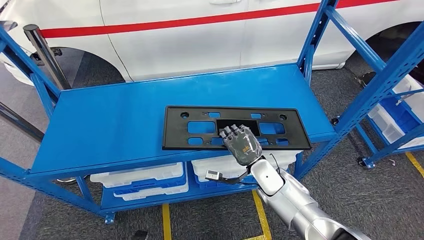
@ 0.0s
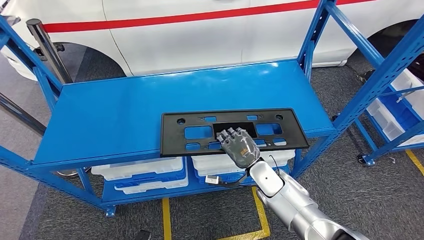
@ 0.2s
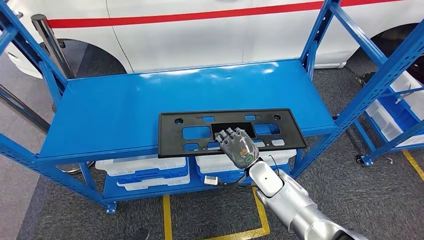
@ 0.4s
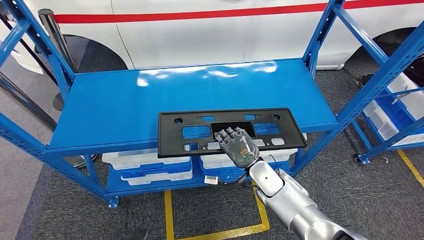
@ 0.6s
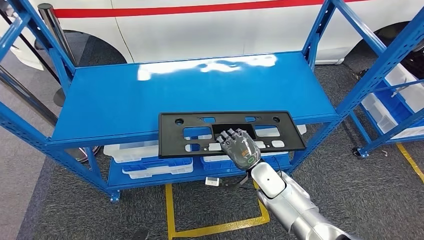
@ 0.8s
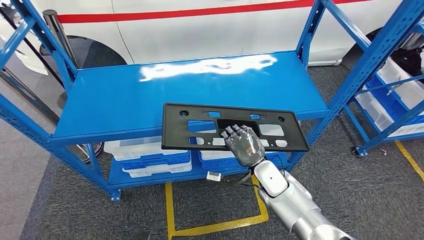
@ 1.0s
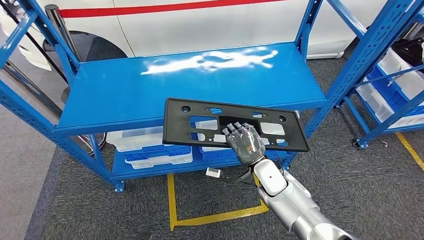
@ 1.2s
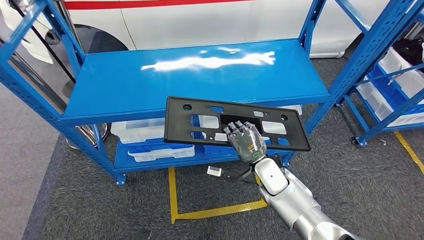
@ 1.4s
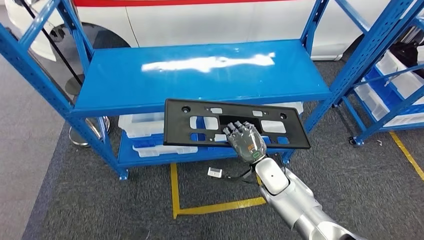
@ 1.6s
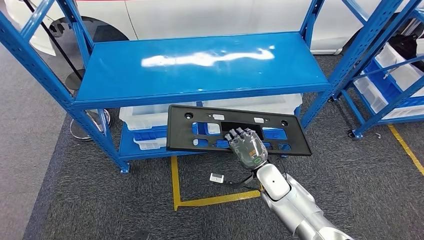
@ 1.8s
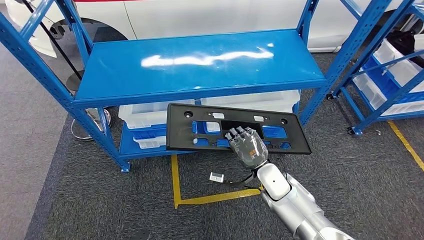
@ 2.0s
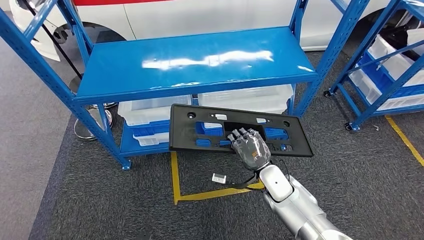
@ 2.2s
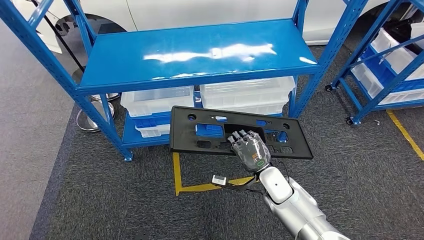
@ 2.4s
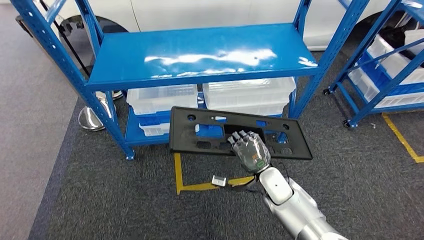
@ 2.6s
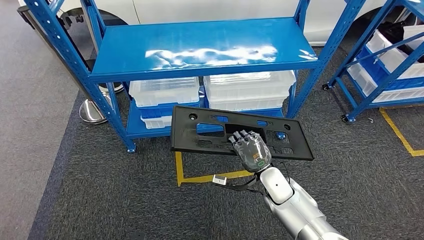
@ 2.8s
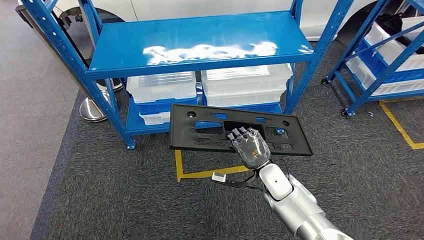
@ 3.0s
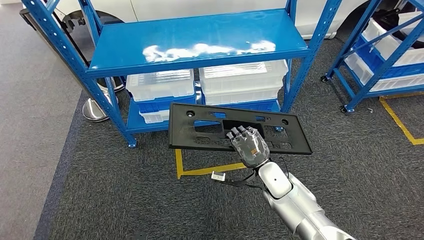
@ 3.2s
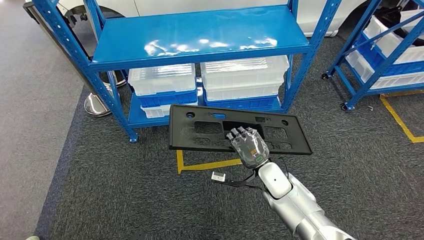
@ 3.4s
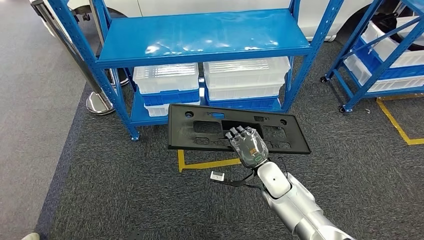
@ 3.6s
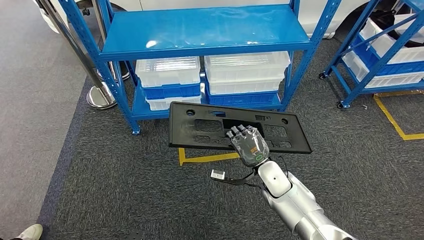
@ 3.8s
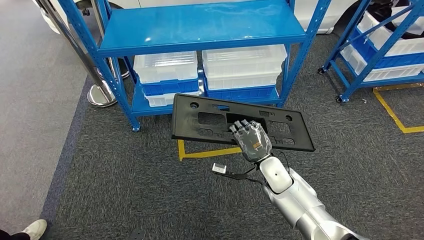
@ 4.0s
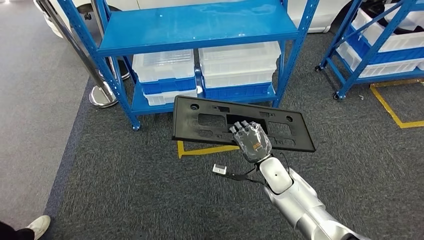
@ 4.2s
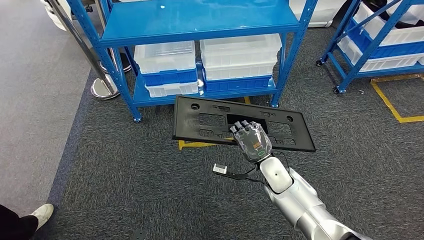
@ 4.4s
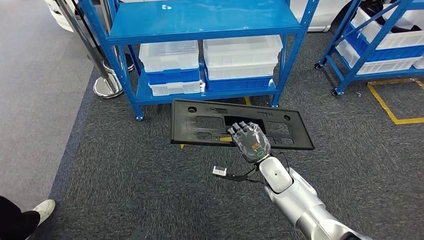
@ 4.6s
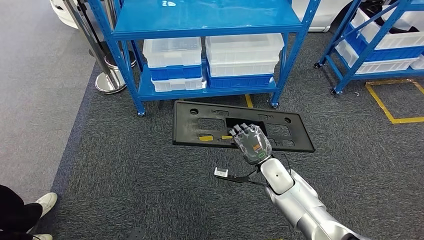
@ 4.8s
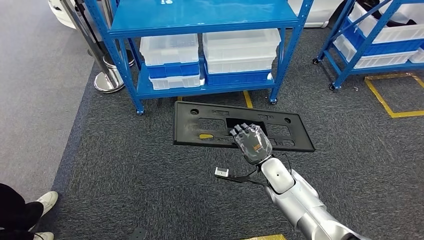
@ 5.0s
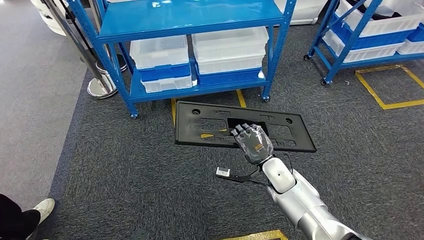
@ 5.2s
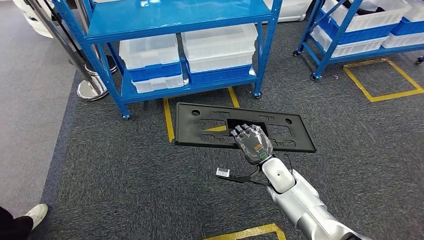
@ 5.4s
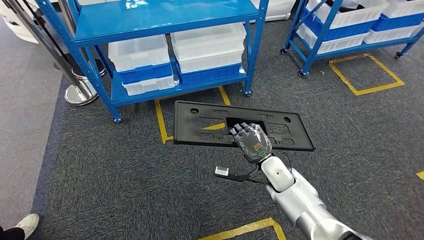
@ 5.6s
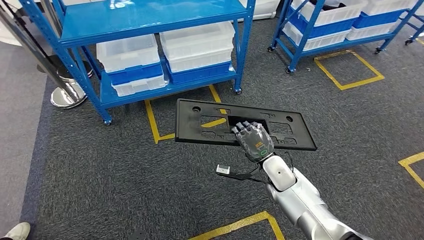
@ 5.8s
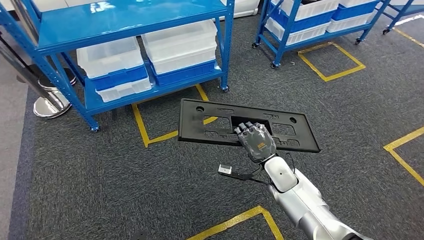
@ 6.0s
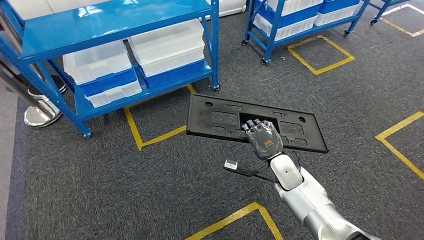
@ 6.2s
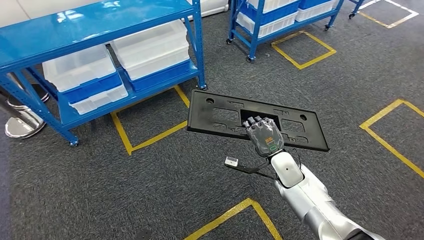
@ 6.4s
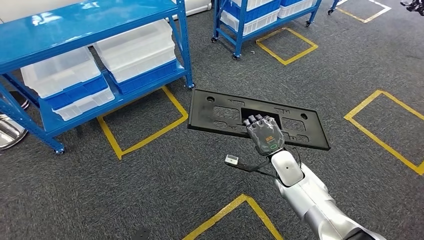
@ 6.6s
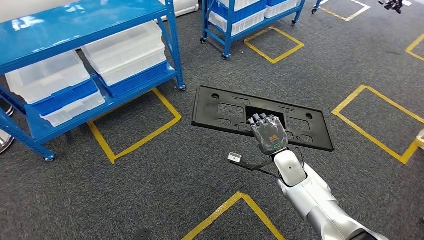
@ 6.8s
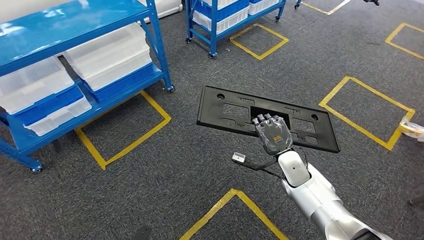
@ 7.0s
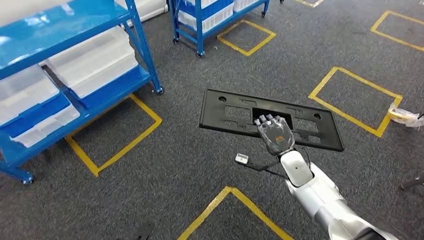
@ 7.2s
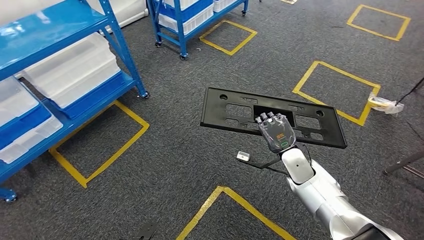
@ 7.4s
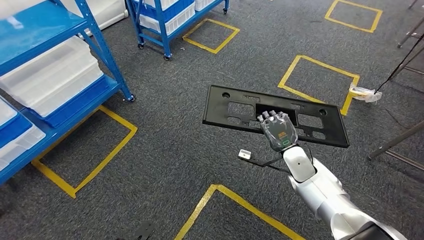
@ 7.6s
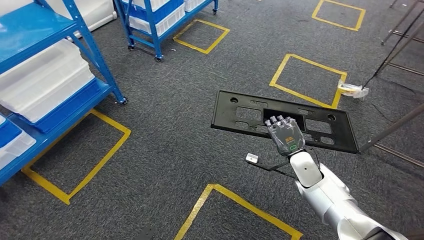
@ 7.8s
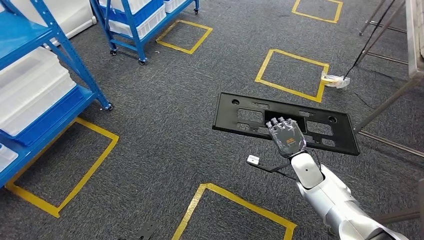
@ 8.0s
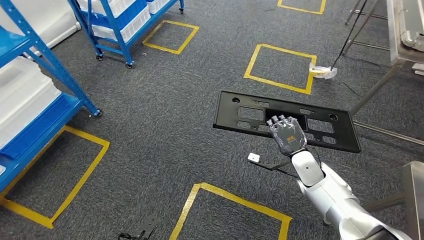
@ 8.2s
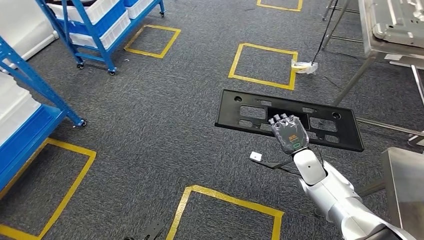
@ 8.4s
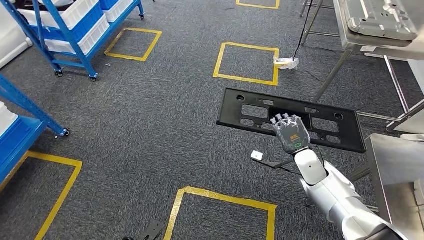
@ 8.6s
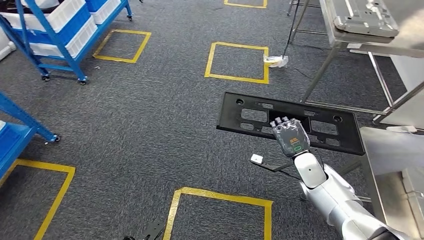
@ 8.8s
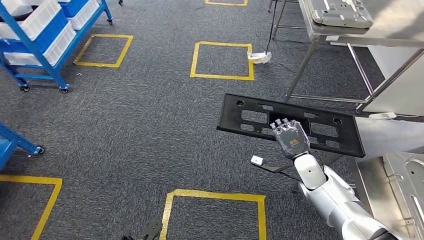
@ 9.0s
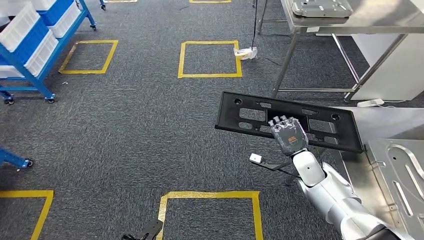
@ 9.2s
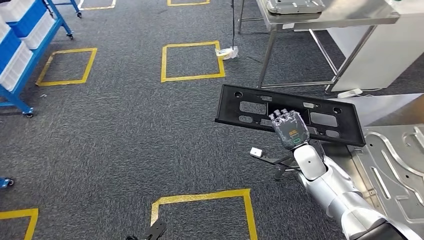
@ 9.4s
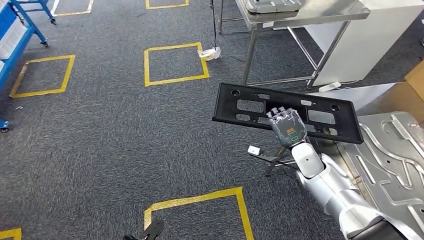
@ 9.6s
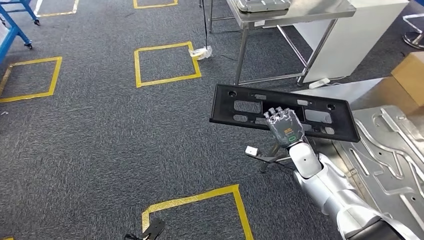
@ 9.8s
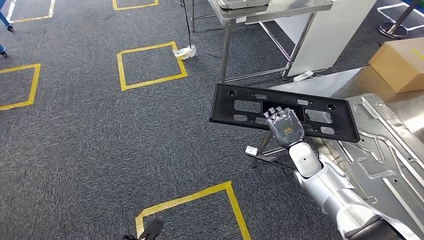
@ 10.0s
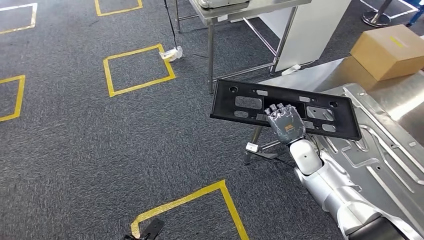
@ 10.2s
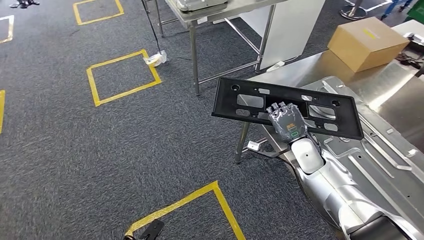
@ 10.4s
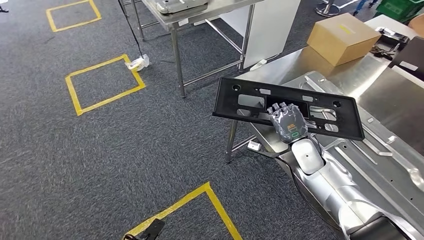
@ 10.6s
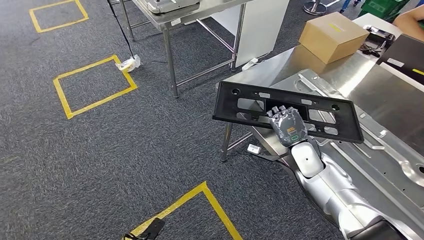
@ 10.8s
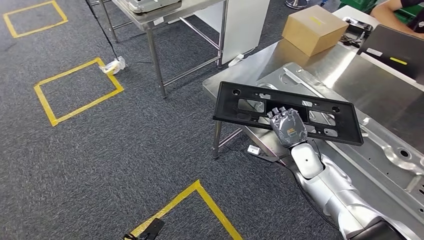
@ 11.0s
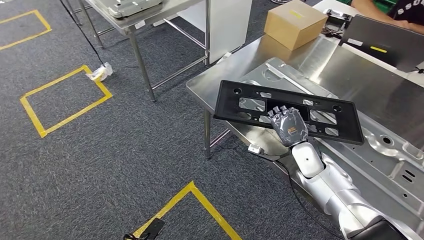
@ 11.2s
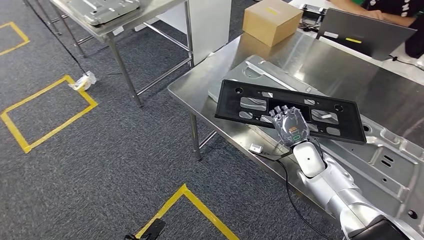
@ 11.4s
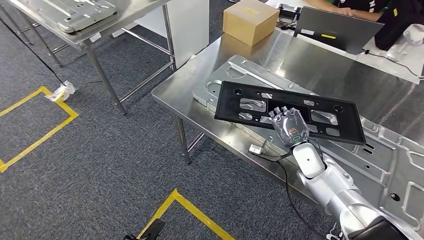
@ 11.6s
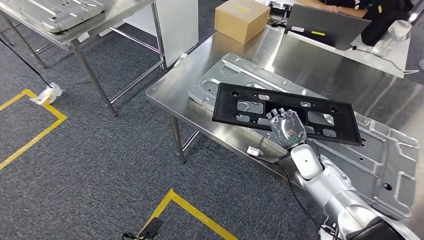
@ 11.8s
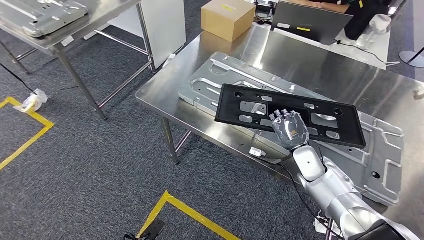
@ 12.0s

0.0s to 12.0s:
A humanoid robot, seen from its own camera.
Step, 2.2s to 10.2s: Move the large material to the workbench.

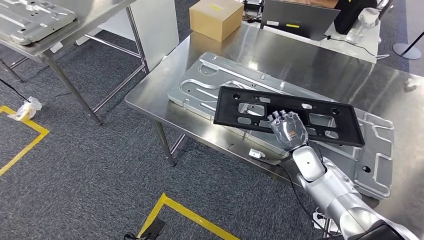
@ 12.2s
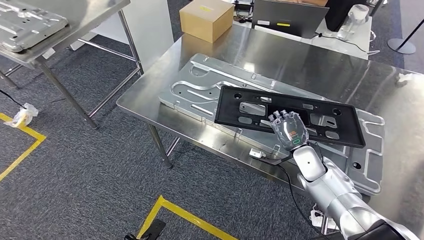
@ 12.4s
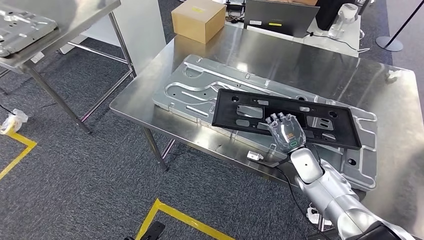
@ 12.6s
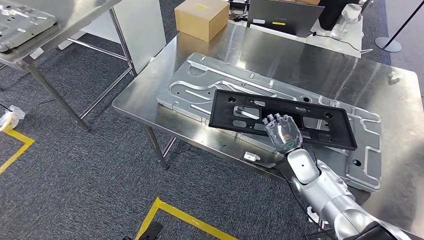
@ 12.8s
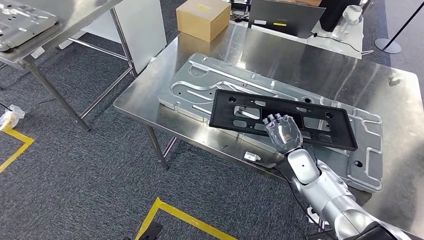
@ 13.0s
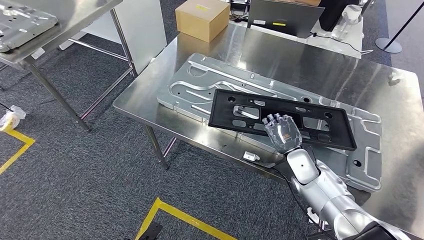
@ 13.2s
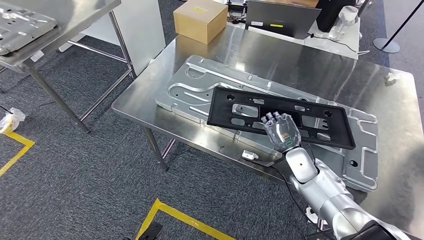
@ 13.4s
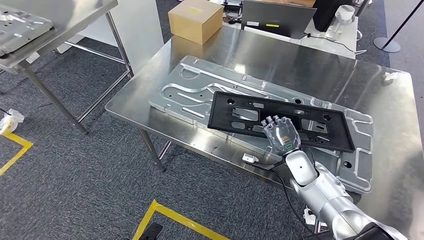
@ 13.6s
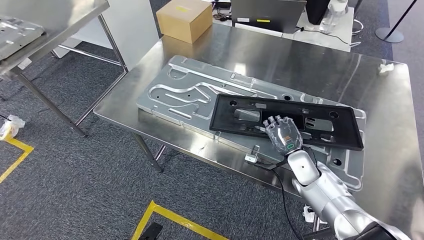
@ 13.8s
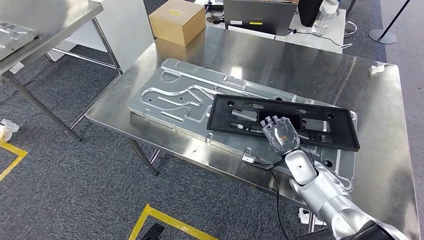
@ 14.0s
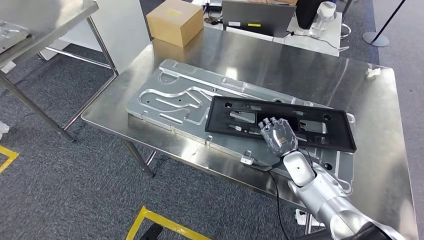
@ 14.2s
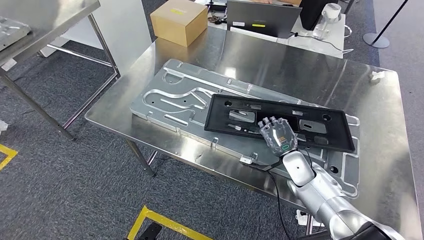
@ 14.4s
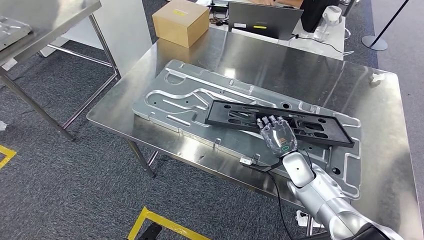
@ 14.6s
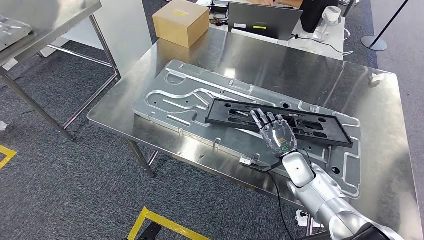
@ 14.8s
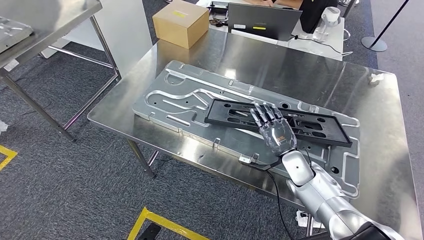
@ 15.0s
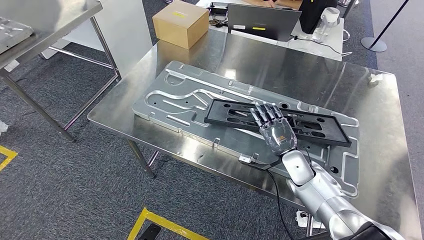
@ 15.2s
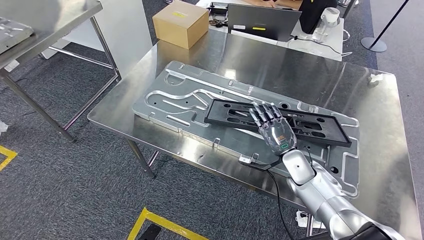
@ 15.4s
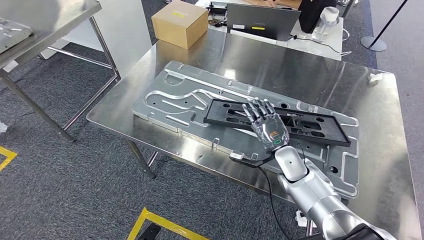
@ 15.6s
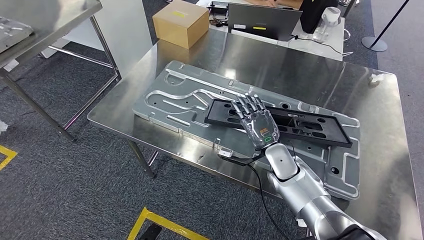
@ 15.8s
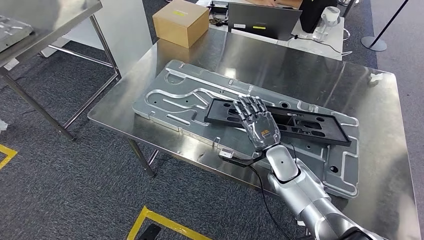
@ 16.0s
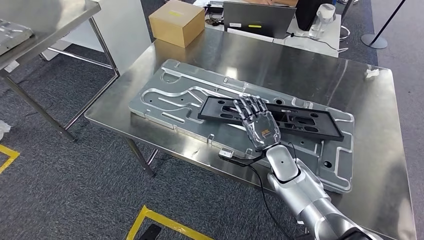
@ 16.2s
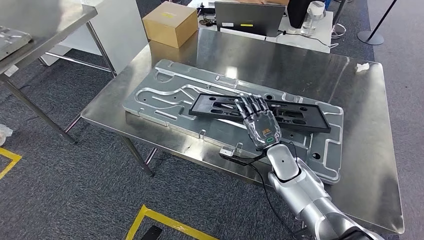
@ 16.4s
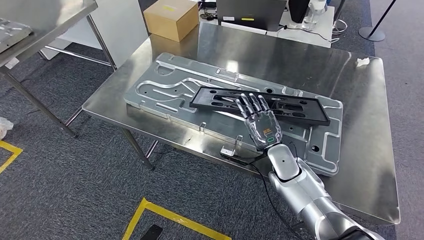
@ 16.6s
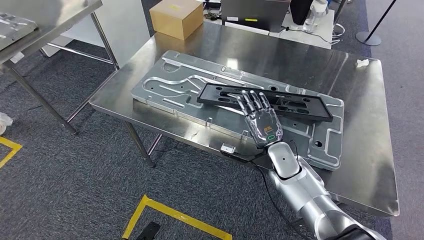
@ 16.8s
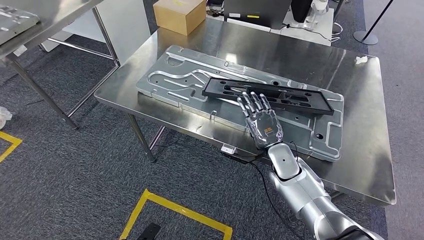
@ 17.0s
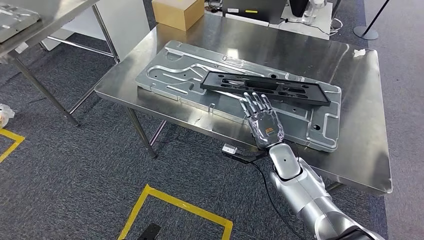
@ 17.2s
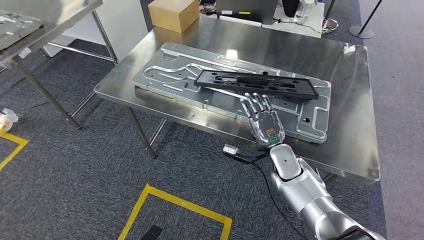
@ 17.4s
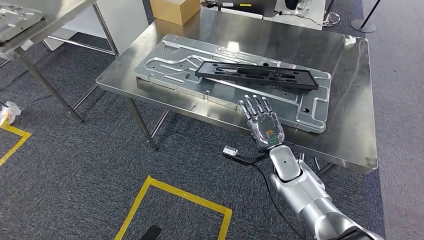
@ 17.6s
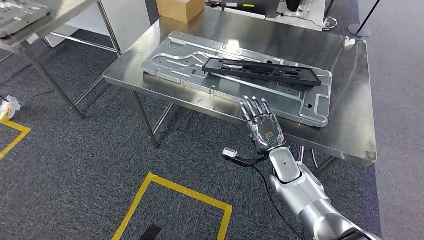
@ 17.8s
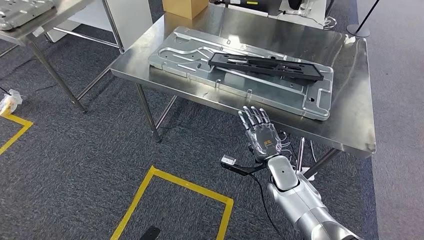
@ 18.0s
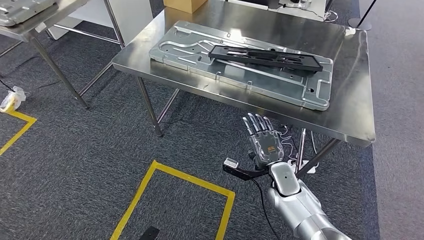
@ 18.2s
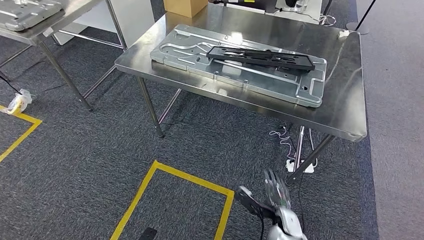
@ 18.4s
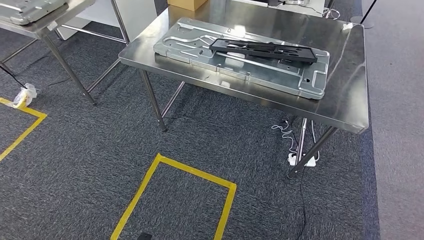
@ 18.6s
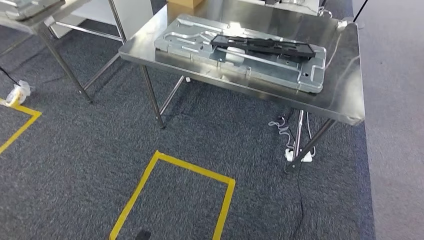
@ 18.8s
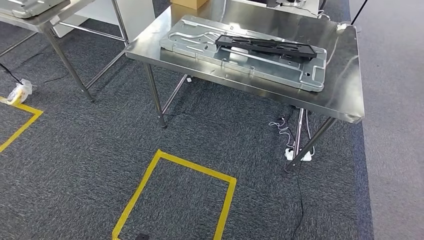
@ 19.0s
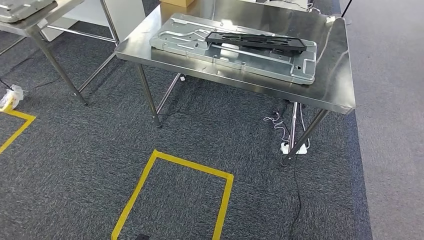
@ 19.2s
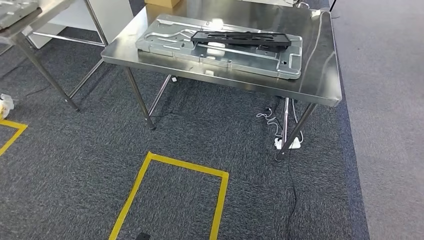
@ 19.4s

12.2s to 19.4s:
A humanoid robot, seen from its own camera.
Step, 12.2s to 18.2s: Insert the large material into the corresponding slot on the workbench.
